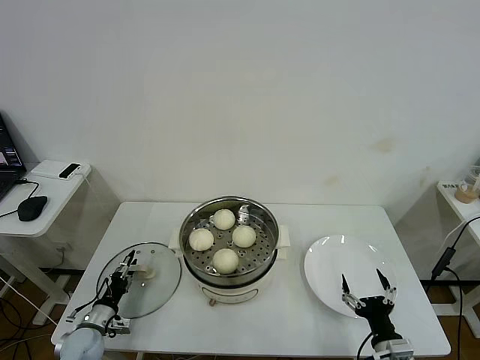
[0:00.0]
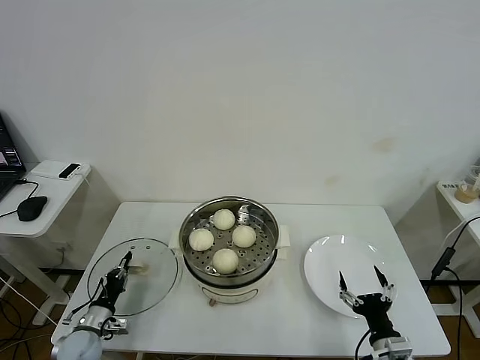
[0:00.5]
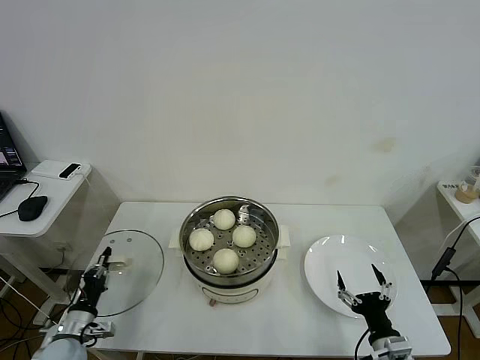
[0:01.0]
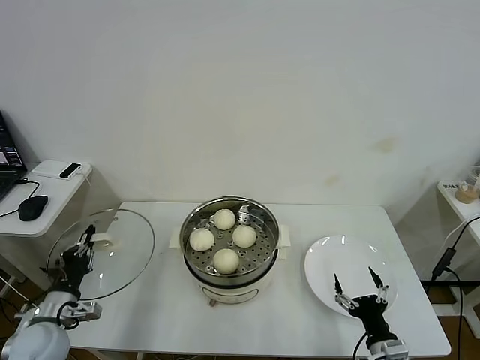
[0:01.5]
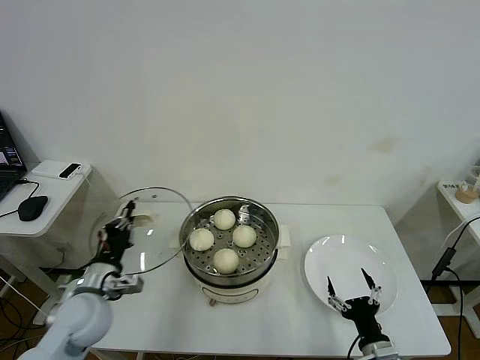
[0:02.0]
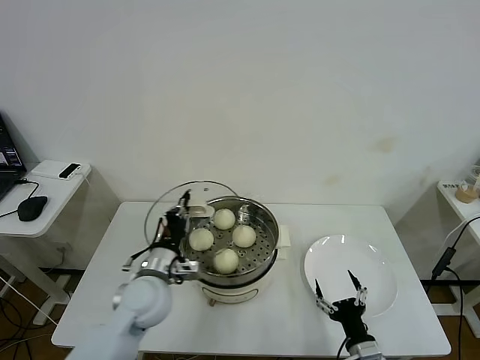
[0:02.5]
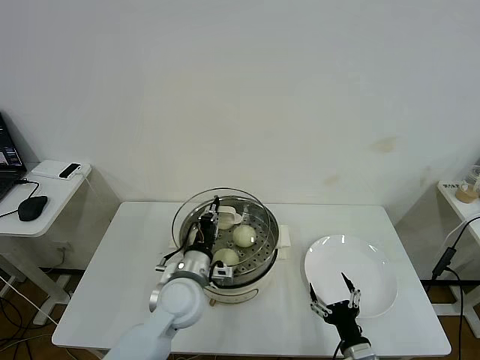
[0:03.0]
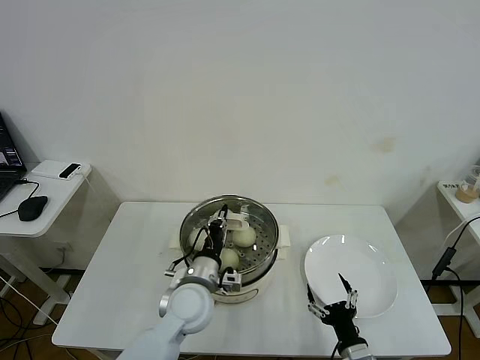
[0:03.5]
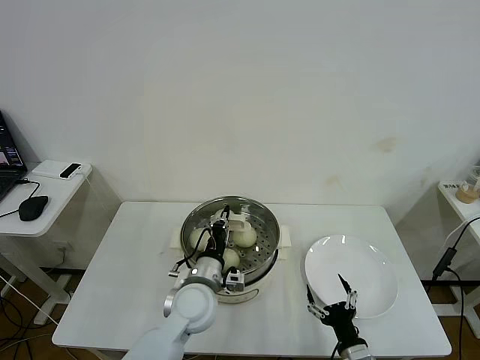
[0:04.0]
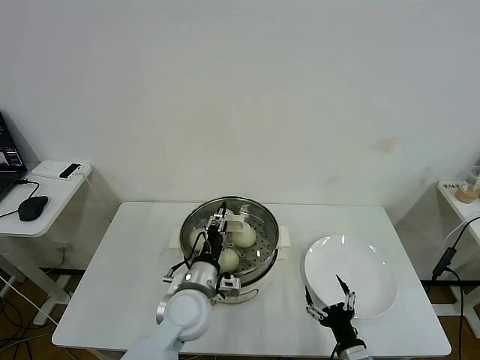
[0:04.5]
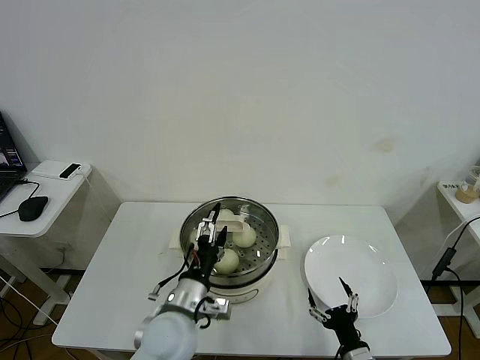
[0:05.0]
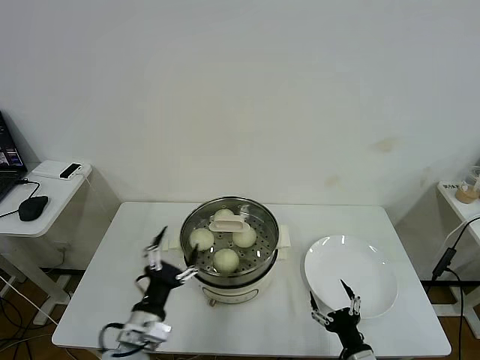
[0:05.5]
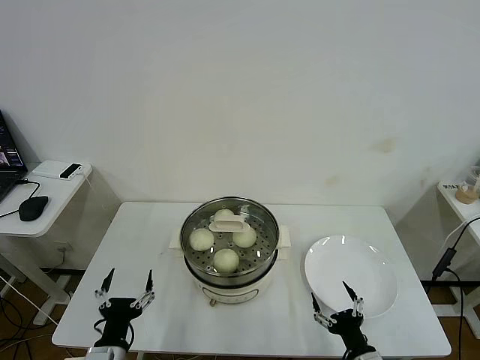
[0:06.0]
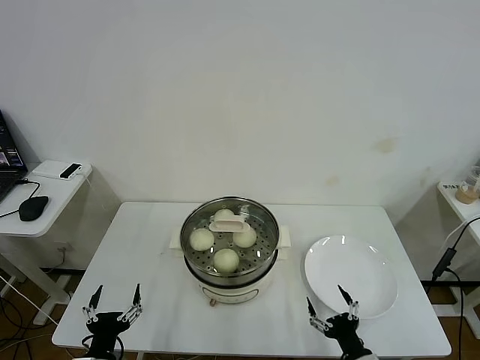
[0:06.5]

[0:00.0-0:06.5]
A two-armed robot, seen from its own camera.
Task of the whole recording: take steamed baozi put them in steamer then cover it.
Step, 0:01.0 to 0:04.5: Place the pot lid on the steamer with left gripper.
0:00.0 to 0:02.0: The left gripper travels upward by approximately 20 cm, and closes.
0:02.0 to 0:04.5: The left gripper moves to the right, roughly 20 cm, and opens.
0:04.5 to 0:06.5: The left gripper moves to the left and backward, about 25 cm, and opens its fingers.
